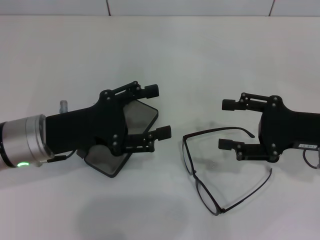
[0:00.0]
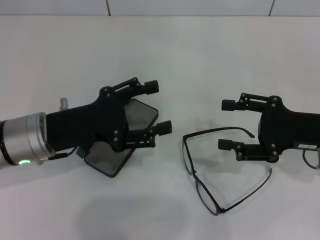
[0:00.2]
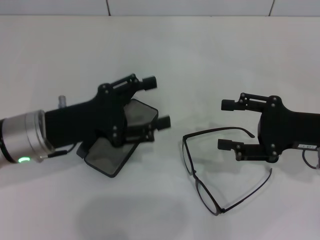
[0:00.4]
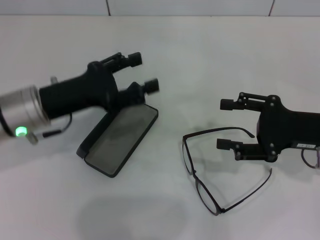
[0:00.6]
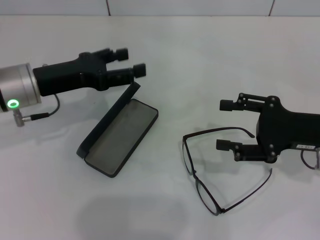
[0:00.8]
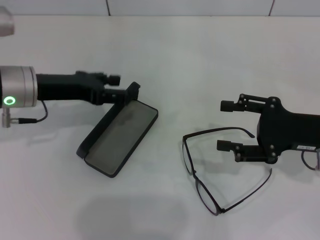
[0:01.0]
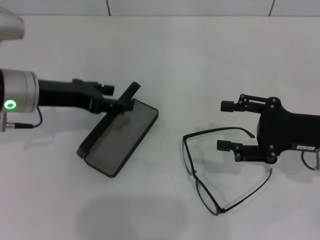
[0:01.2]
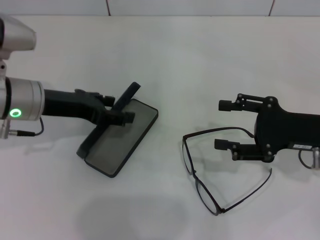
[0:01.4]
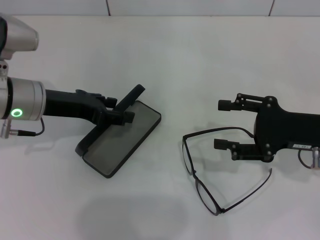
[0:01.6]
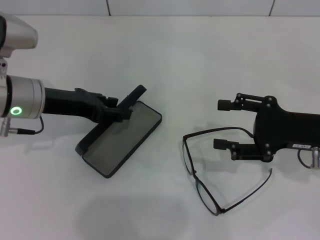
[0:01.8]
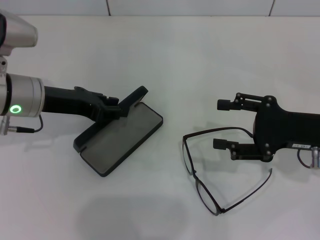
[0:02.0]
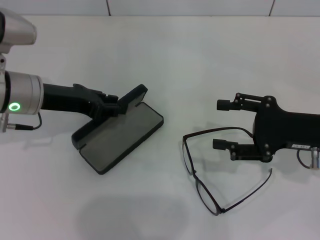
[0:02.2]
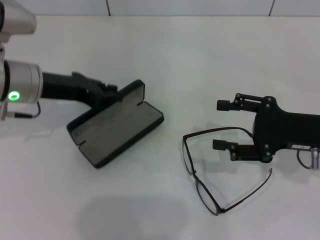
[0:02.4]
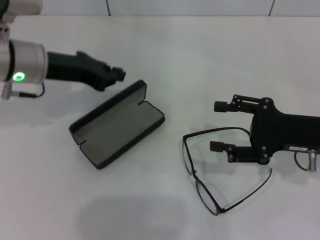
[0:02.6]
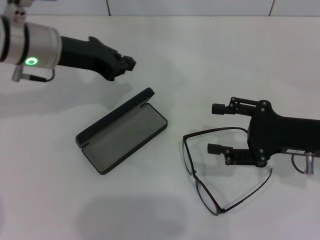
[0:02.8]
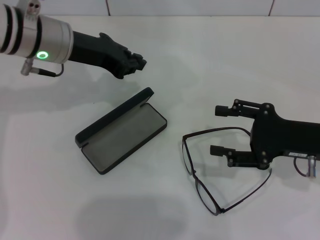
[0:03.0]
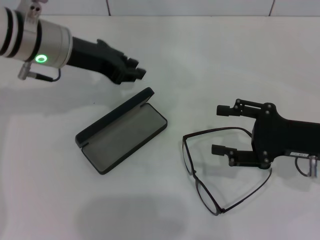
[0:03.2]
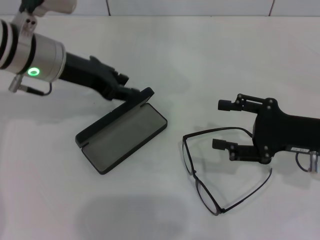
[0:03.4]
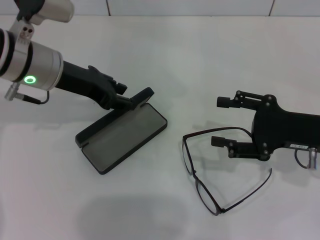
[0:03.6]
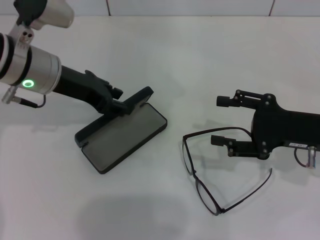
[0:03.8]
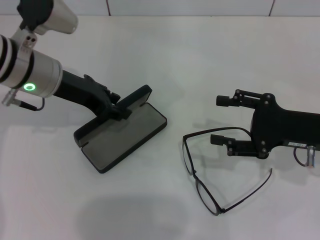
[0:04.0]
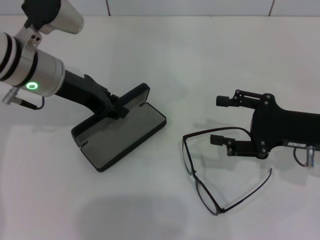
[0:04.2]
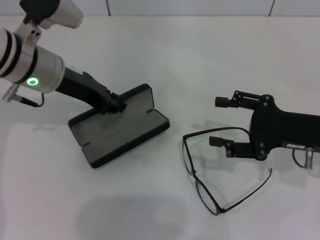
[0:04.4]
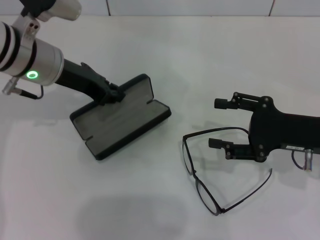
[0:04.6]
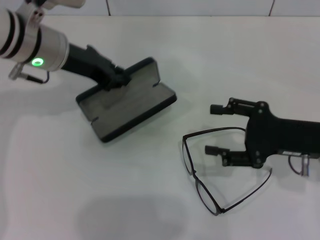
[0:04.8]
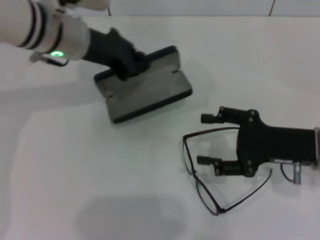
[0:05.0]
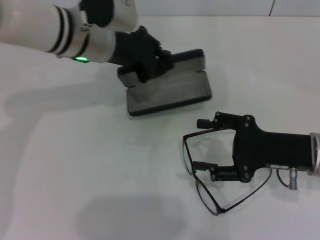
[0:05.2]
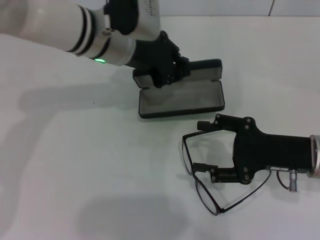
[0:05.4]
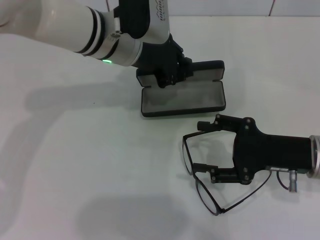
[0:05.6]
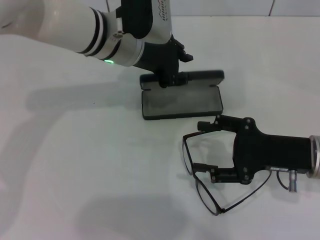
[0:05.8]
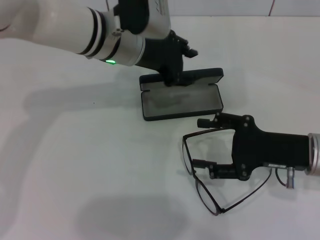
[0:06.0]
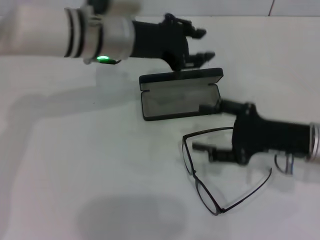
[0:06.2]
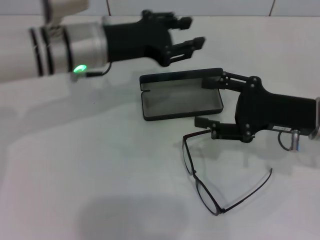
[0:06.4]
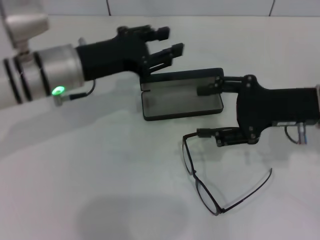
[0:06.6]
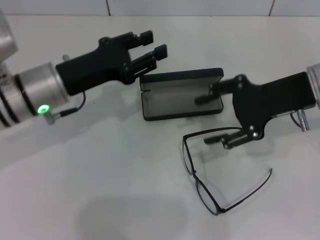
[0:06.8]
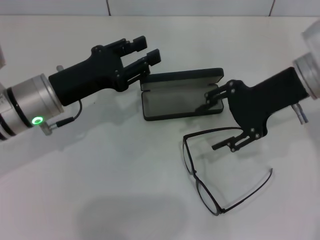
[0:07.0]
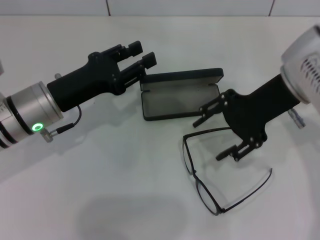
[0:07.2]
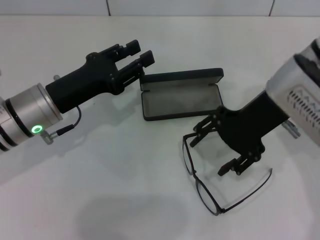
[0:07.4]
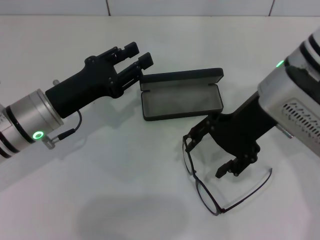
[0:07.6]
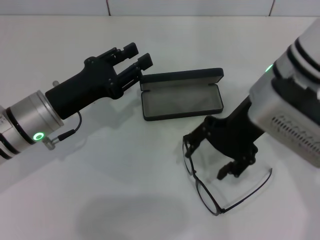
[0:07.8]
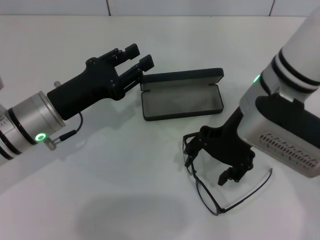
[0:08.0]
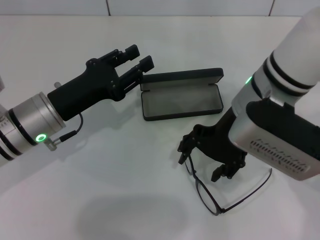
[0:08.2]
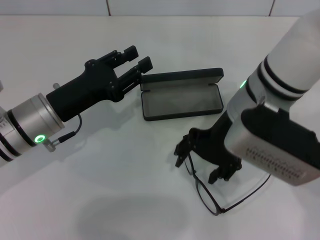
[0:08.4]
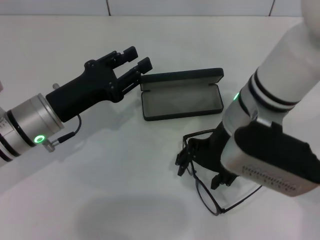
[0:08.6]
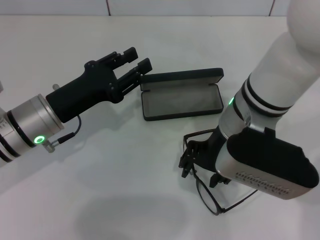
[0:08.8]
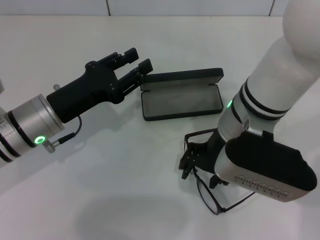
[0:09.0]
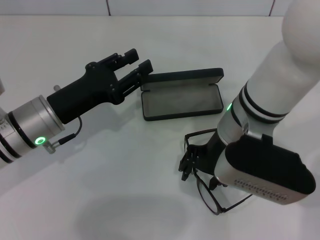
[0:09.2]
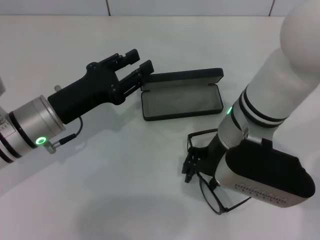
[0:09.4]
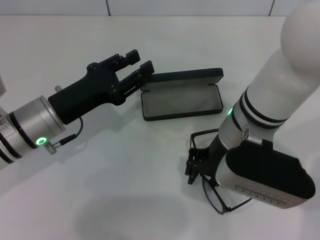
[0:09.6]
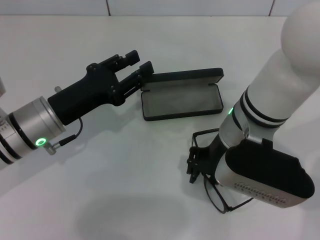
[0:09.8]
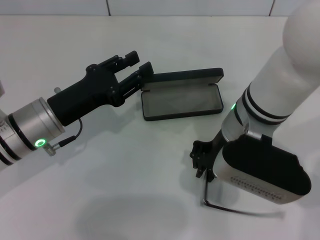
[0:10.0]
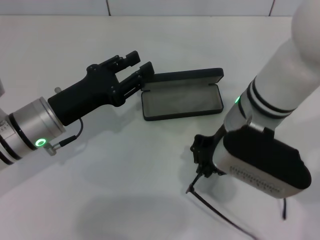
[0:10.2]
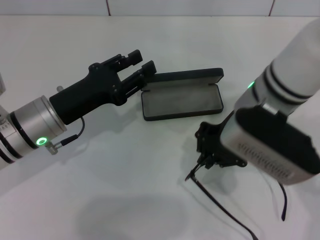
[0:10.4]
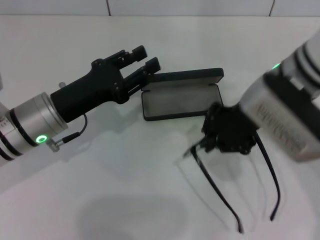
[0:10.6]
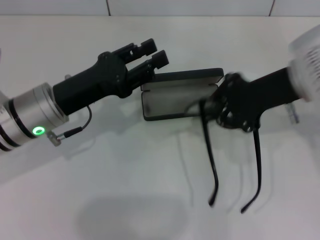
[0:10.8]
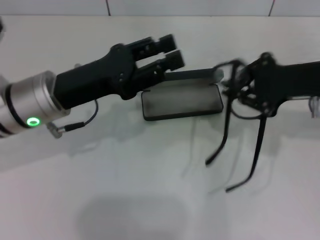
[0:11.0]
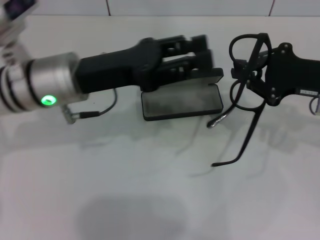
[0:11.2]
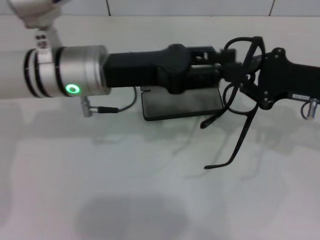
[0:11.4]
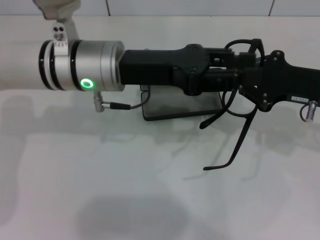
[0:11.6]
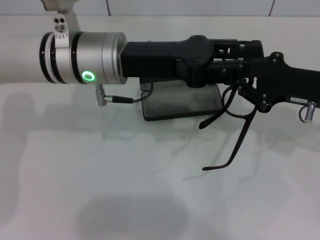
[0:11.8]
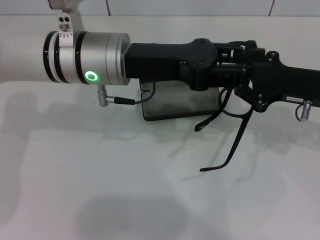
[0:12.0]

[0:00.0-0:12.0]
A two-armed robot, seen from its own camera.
Step, 0:00.0 to 0:04.0: Grab the glasses case with your left hand.
Step, 0:04.4 to 0:05.6: Place the glasses case in the center of the table with your left hand.
Step, 0:05.8 to 0:09.4: Grab the eyeglass frame with your right hand.
0:00.0 to 0:01.6: The left gripper goes approximately 5 cm forward.
0:01.6 to 0:03.0: The left gripper moves forward and upward, about 10 cm, and closes up.
0:04.4 to 0:06.0: The left gripper heads to the right, covering about 10 cm.
0:06.0 to 0:07.6: The left gripper heads to the left, backward and downward, covering about 15 cm; the right gripper travels upward and to the left by about 15 cm.
0:07.6 to 0:09.0: The right gripper moves to the left, some 5 cm.
0:09.0 to 0:10.4: The right gripper closes up.
0:10.4 to 0:12.0: The right gripper goes roughly 15 cm to the right. Meanwhile the left gripper travels upward, to the right and forward by roughly 15 cm.

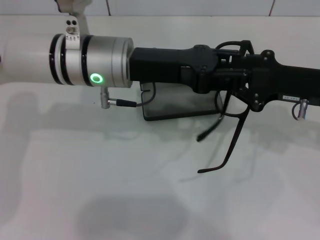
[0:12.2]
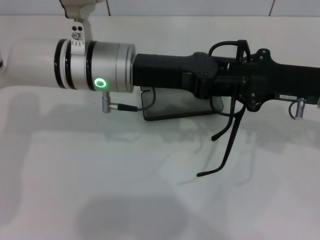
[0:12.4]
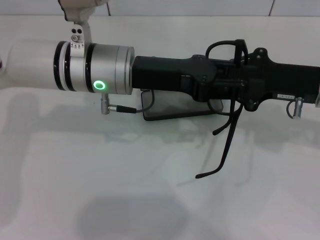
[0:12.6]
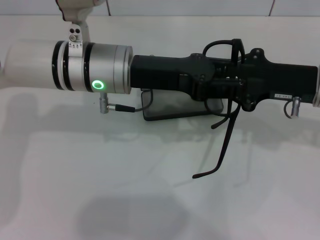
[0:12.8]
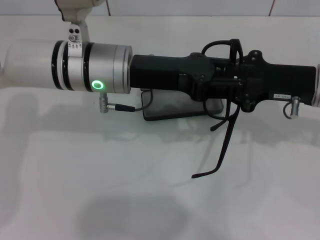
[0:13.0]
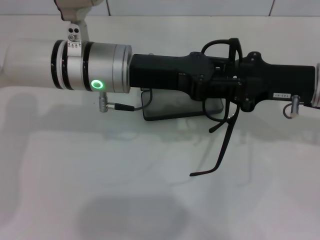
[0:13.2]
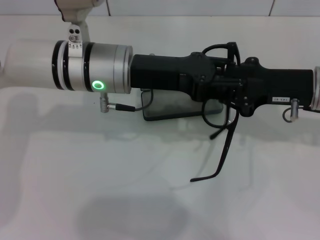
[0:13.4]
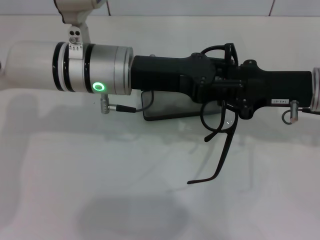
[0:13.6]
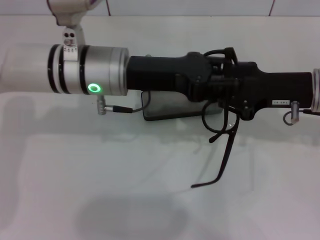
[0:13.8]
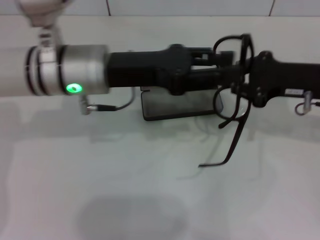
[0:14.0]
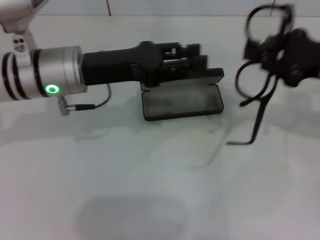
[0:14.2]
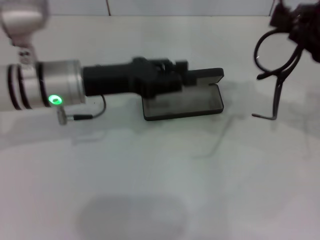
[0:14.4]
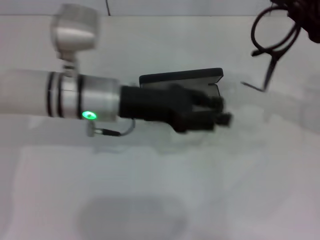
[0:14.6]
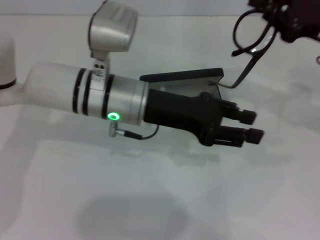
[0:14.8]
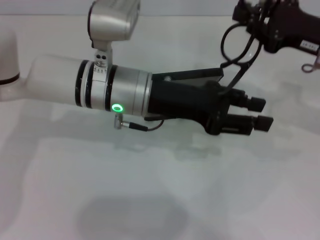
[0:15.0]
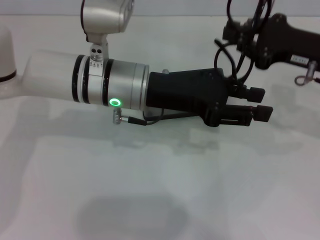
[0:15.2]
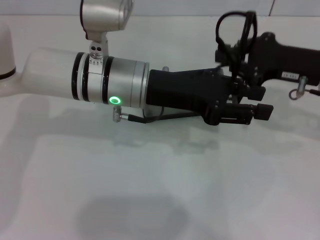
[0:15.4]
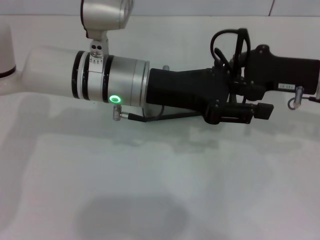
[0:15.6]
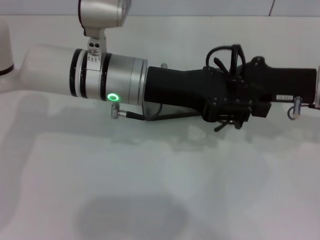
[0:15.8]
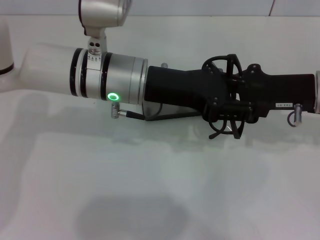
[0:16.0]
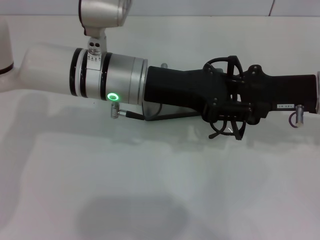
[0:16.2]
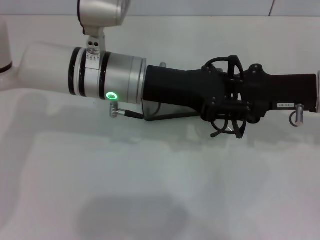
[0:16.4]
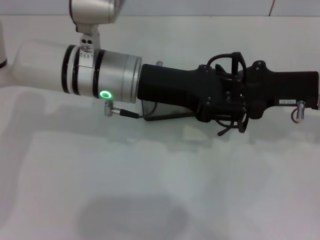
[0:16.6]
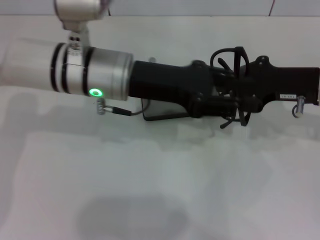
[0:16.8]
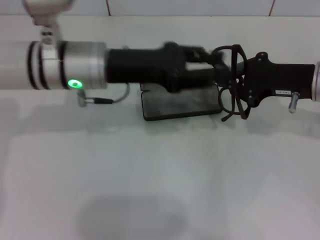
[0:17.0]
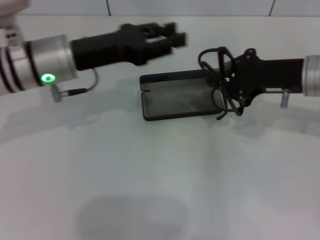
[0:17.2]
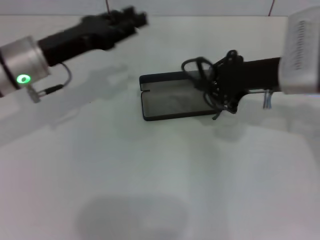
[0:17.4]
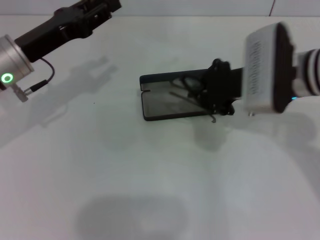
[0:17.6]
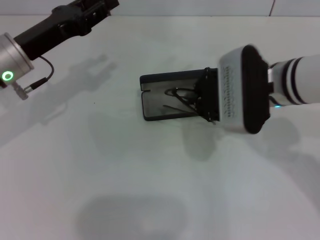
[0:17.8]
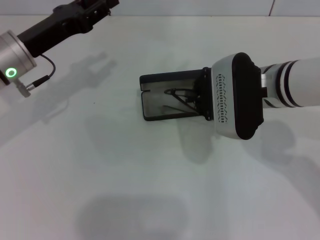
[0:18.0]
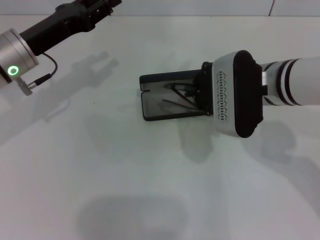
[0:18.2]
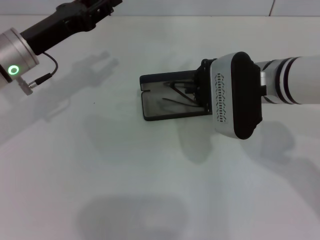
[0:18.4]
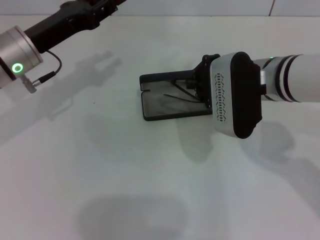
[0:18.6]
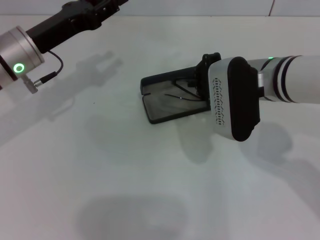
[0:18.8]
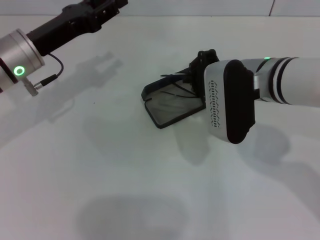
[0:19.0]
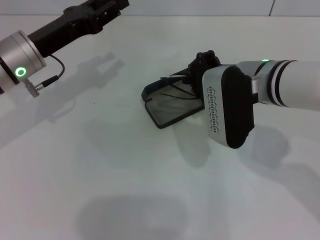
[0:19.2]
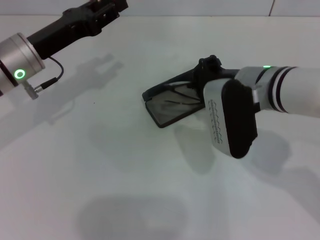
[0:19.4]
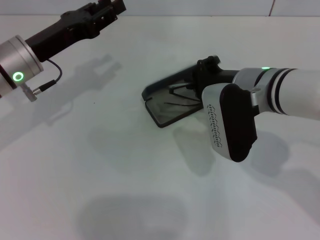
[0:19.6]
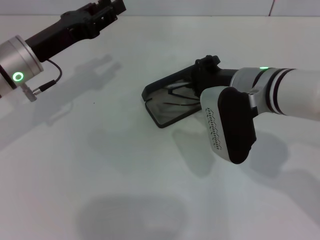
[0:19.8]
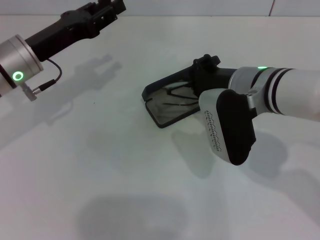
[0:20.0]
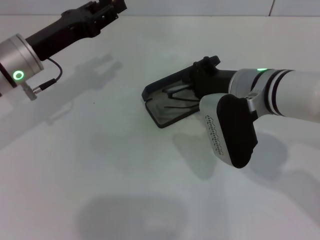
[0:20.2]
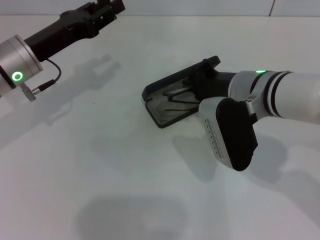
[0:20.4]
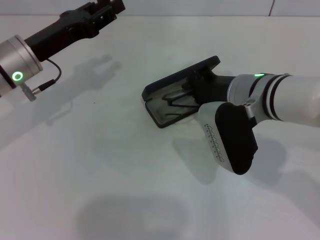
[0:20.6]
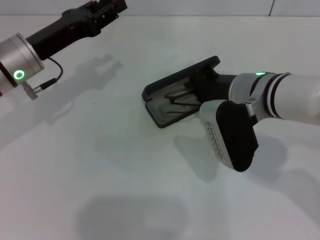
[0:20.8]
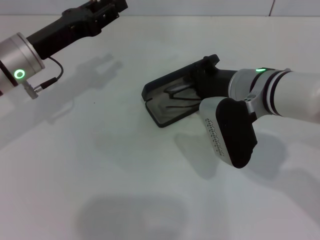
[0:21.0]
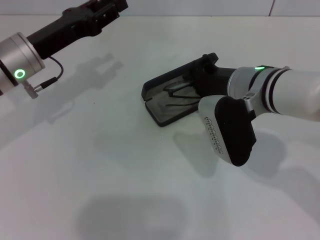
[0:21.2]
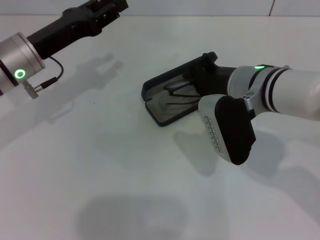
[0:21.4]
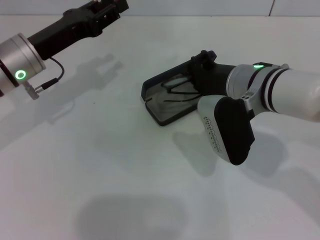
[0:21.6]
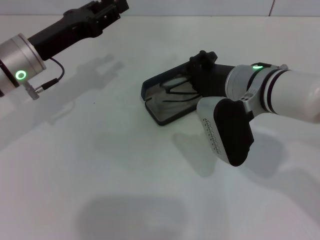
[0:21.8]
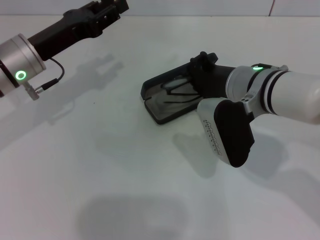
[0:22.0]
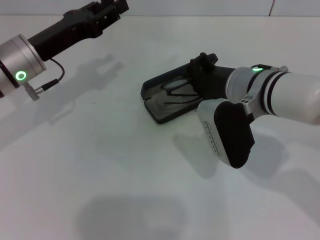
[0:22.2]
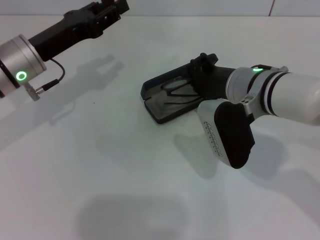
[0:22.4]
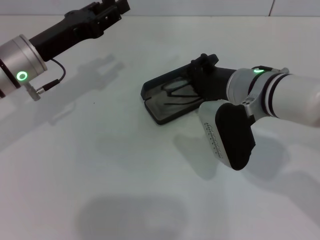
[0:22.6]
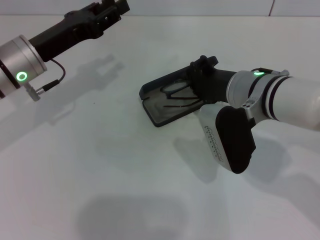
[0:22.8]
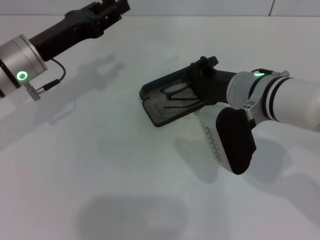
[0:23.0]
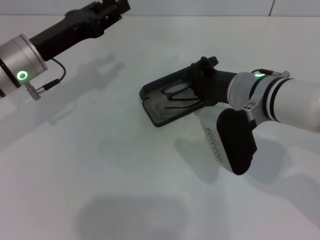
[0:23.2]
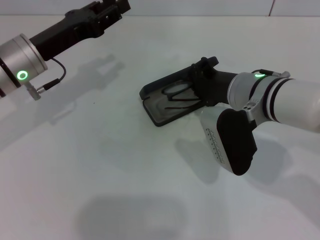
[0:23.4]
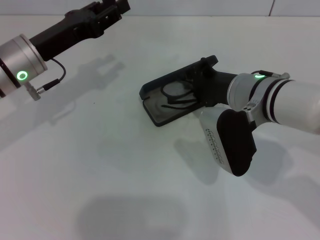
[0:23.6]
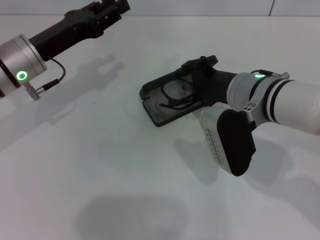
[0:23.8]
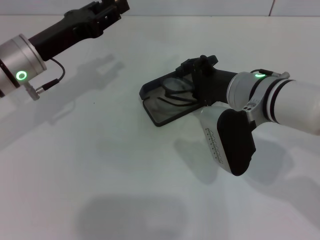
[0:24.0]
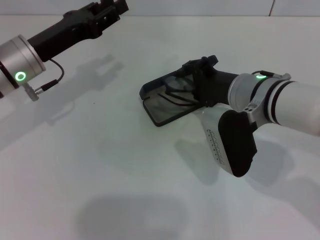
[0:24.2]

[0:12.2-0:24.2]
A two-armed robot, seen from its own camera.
Step, 0:12.2 to 0:15.6: Fold the frame with your left hand.
0:12.2 to 0:13.8: The grippers make only small movements.
0:13.8 to 0:15.2: The left gripper travels to the left and back again, roughly 5 cm each way.
0:16.6 to 0:18.2: The two grippers go approximately 15 cm to the left.
0:19.8 to 0:21.2: The grippers move only a little.
0:21.2 to 0:22.6: Neither gripper changes place.
0:22.6 to 0:24.2: Both grippers stay put.
